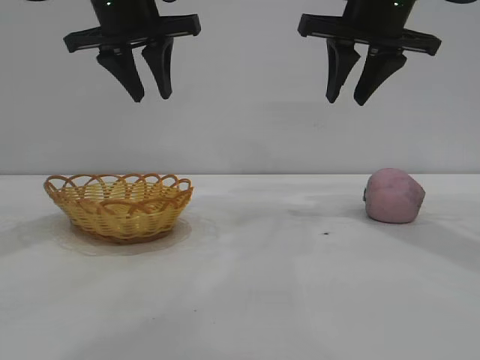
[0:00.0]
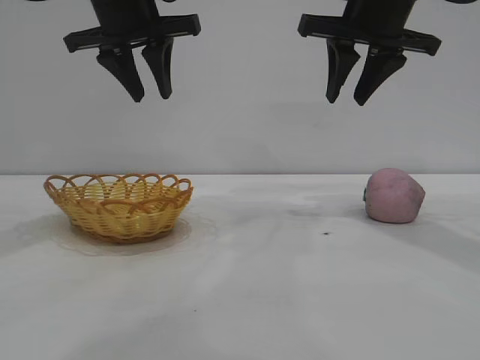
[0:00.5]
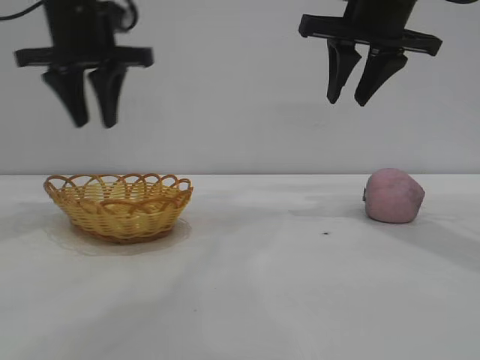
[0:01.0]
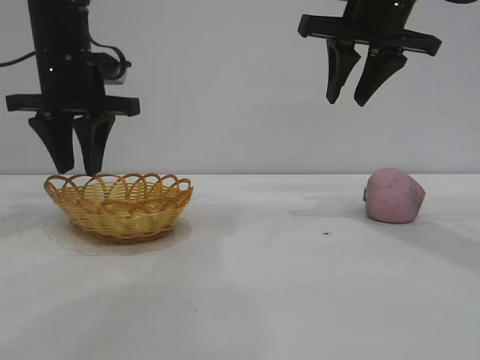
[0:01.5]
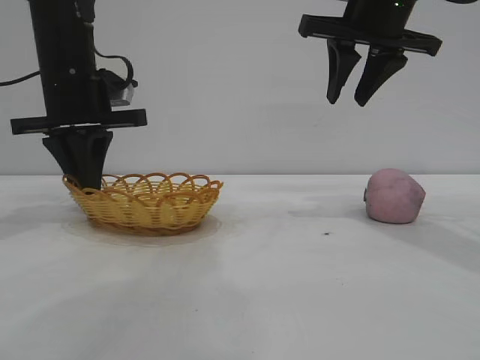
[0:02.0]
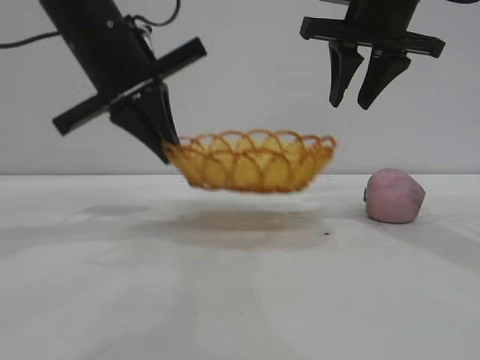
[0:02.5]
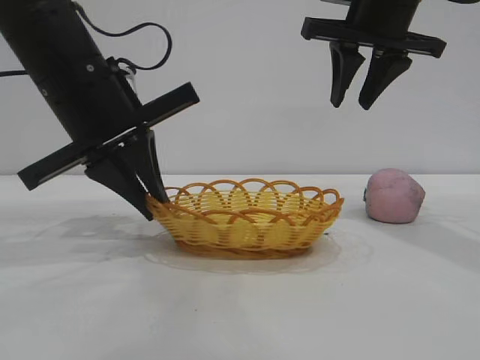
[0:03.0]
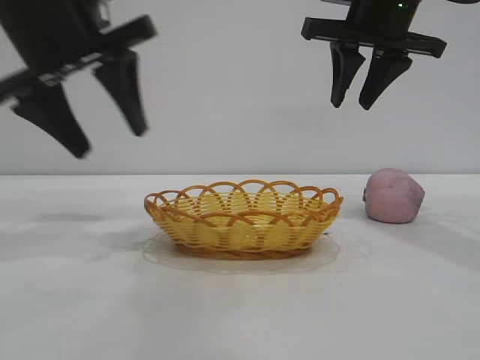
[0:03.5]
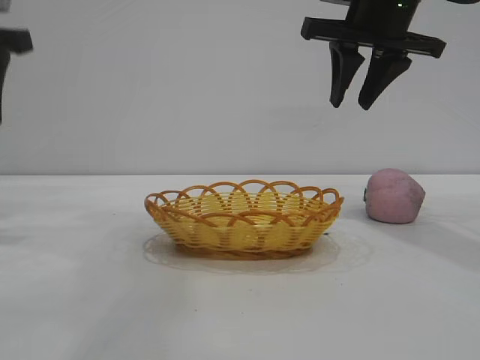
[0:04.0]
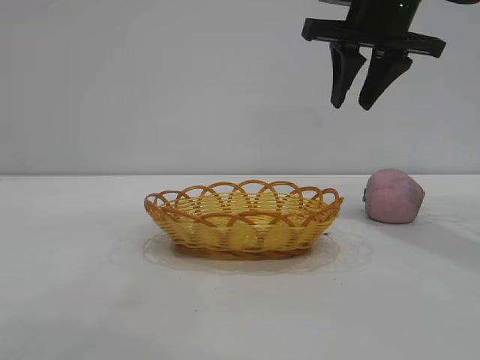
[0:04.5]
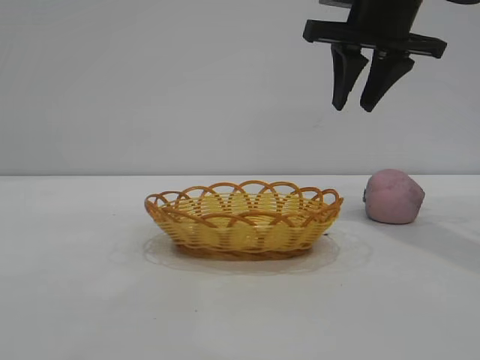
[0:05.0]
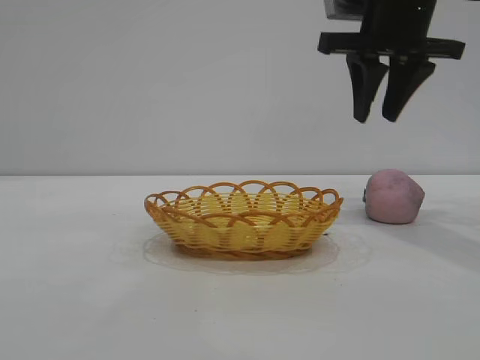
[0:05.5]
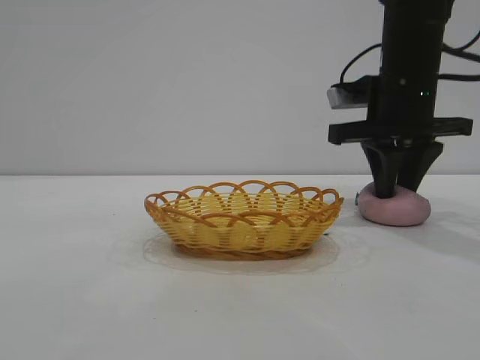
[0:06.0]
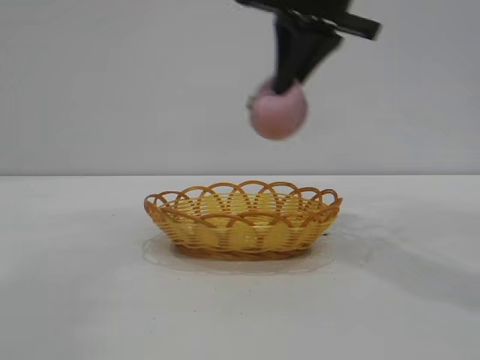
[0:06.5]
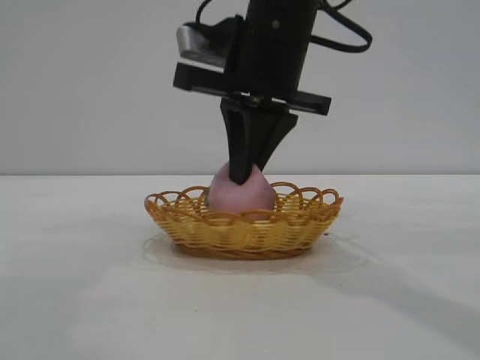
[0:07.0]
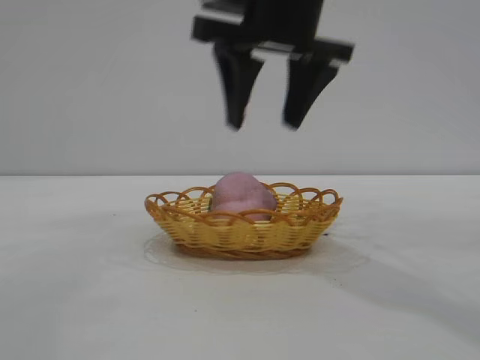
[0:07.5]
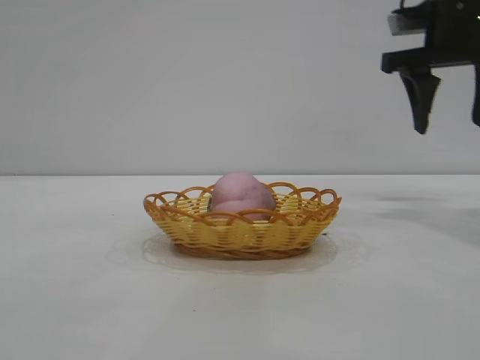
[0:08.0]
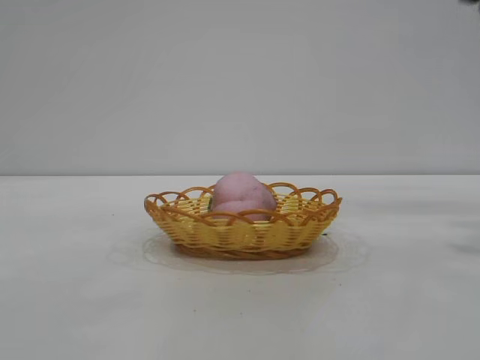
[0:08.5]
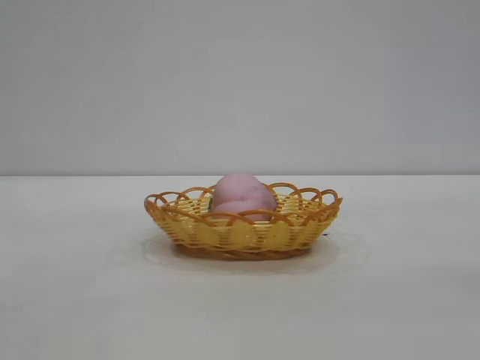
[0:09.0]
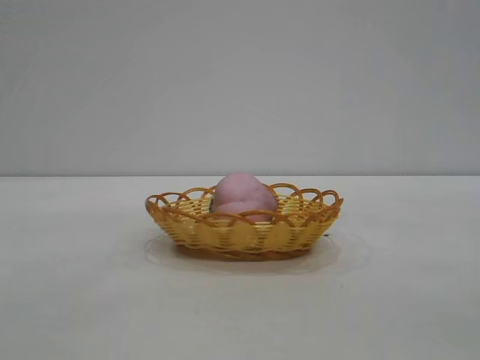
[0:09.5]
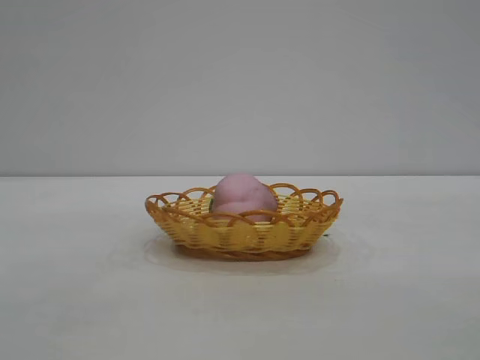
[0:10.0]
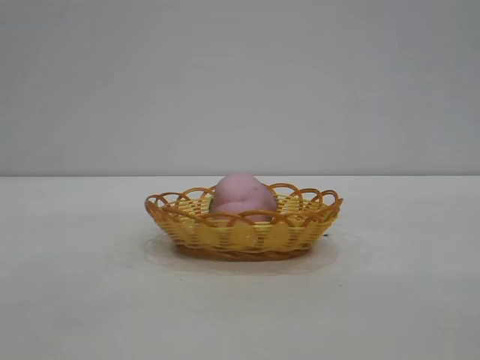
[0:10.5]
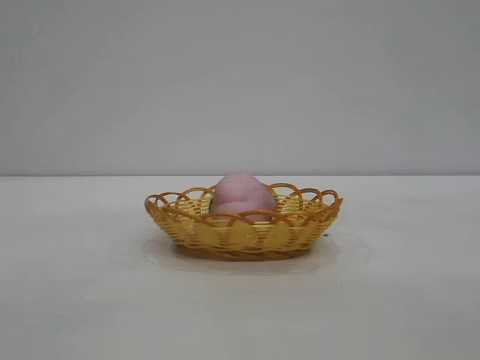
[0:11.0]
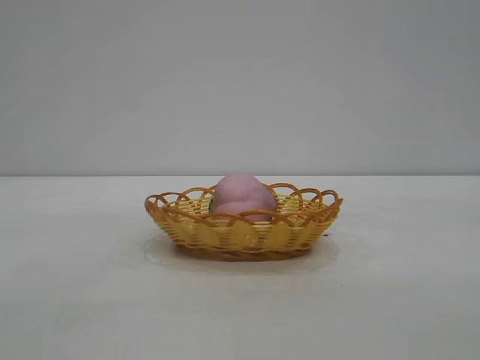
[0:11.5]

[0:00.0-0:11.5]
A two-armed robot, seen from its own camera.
Task of the whole recording: pick up the peach and put it into the basket.
Step, 0:00.0 to 0:03.0: Move the basket to the center of view.
Step, 0:03.5 to 0:06.0: Pick up the peach.
Step, 0:06.5 to 0:07.5: place the peach into the basket.
